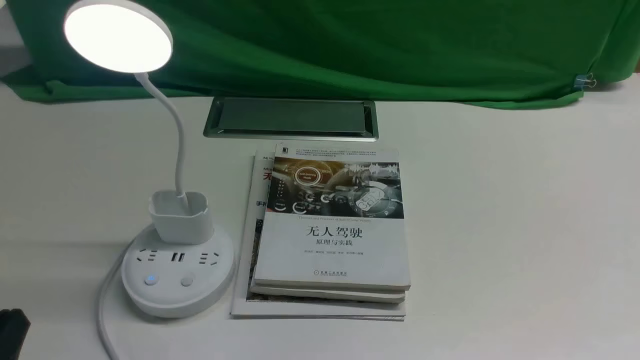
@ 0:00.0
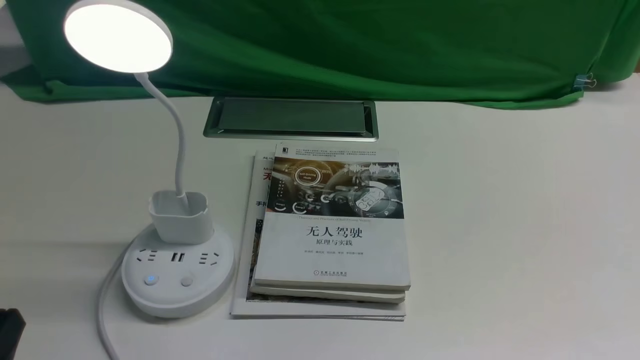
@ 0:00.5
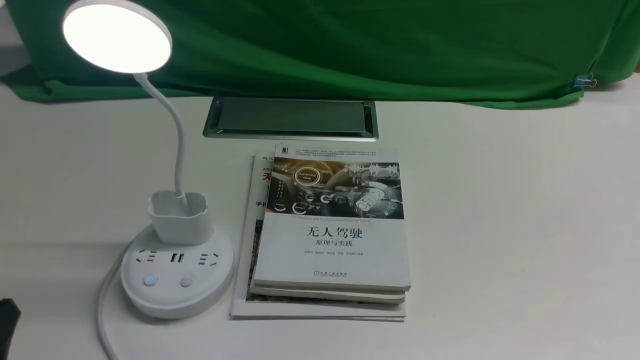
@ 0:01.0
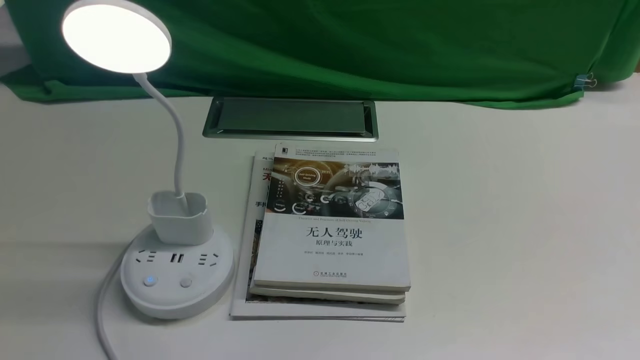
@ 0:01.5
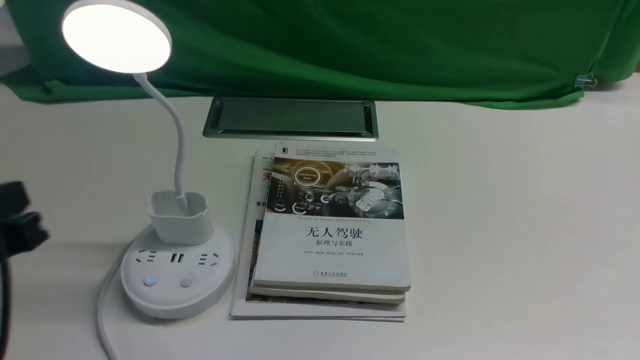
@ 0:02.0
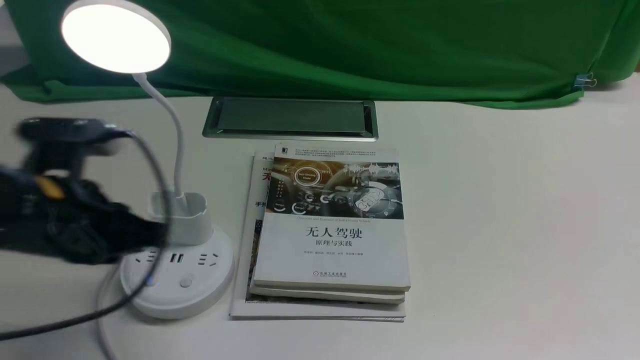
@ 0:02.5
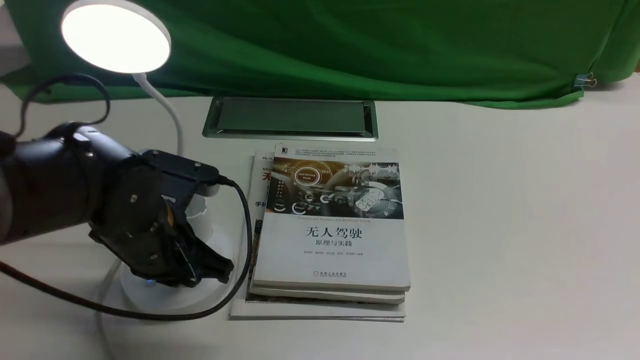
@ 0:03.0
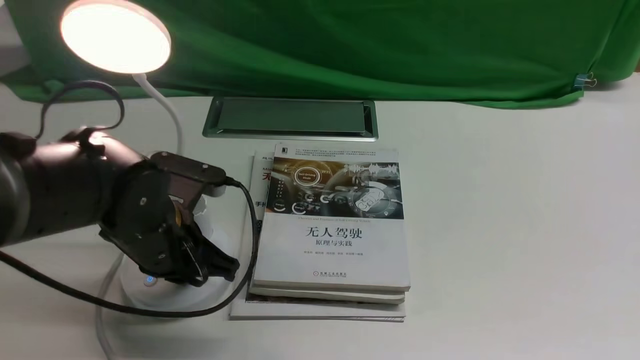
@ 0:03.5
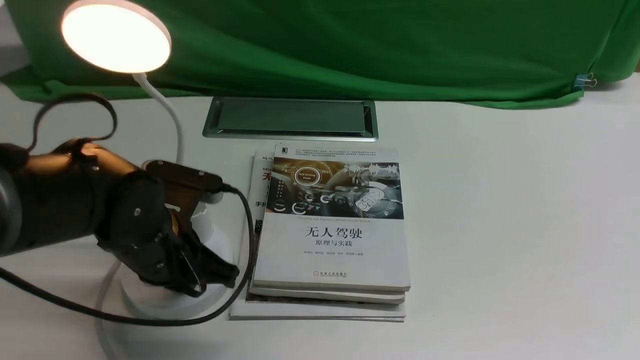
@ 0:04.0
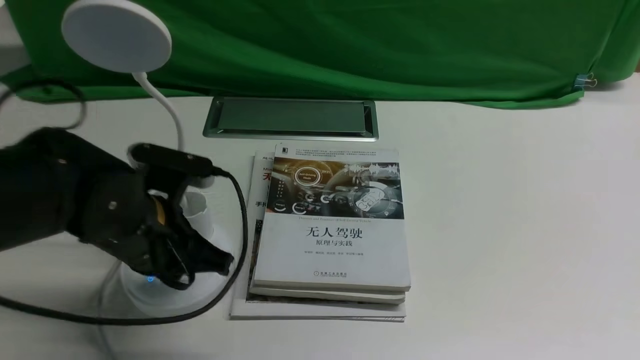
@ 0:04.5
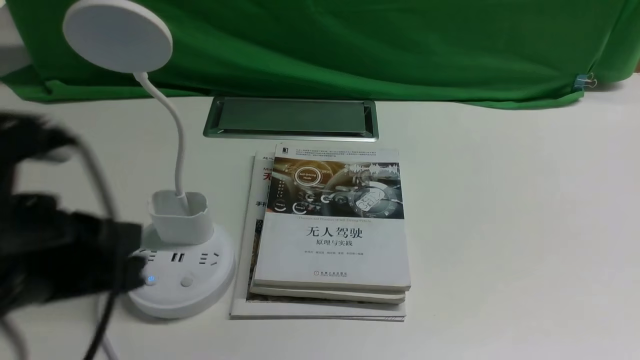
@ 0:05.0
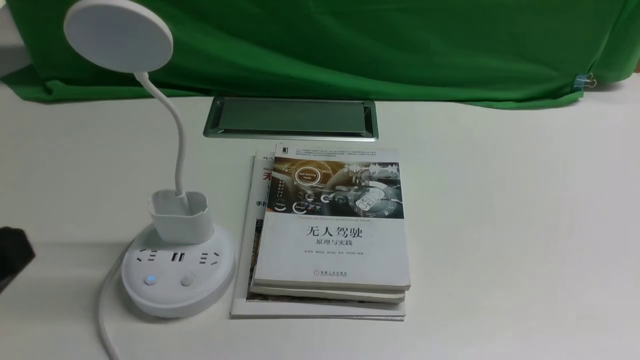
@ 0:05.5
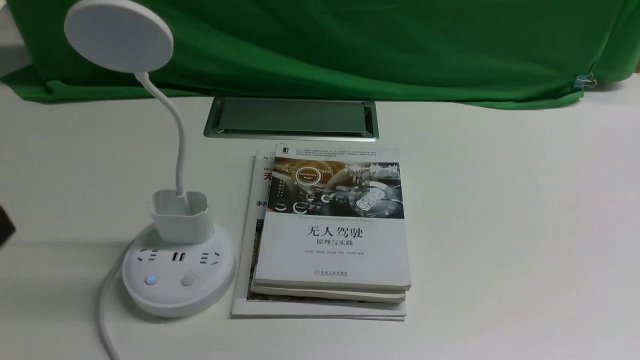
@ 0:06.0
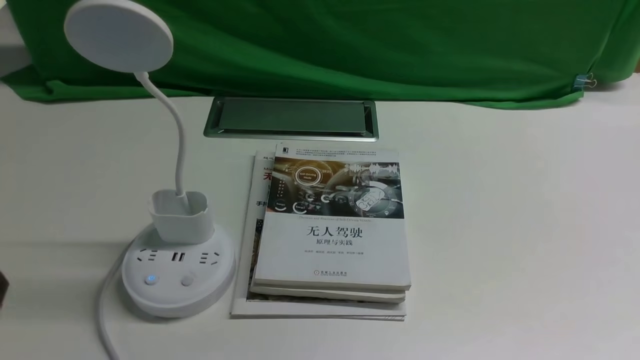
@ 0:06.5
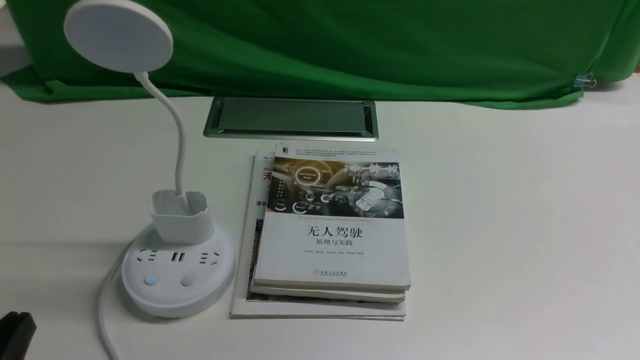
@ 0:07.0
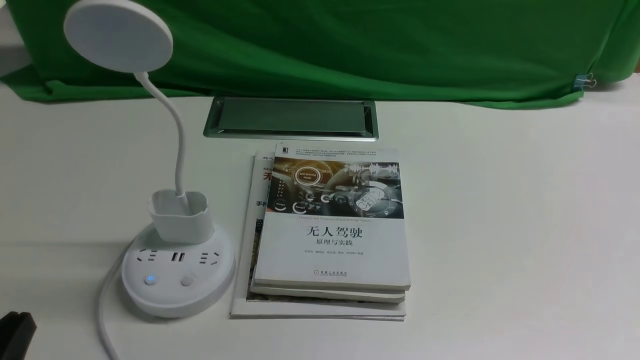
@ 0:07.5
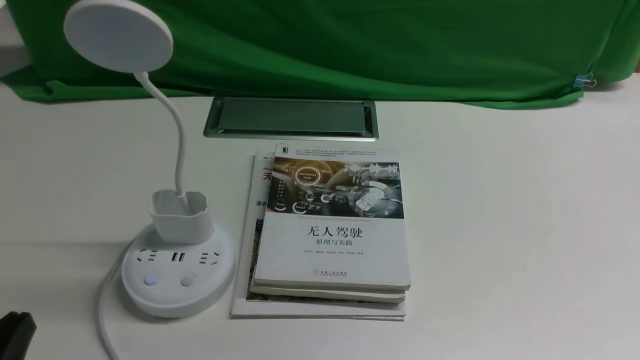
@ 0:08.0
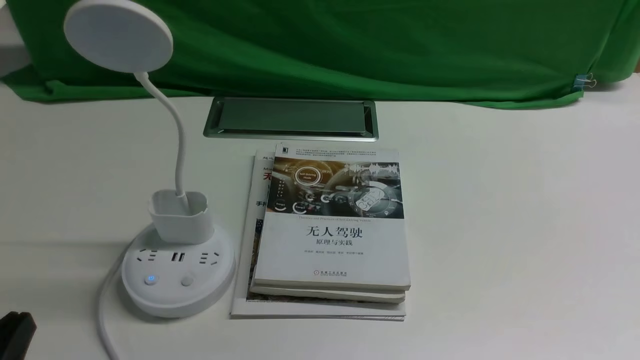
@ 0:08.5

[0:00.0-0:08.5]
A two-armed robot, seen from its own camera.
Task of the whole recording: turn off the desk lamp on the white desktop by hand.
Step, 0:00.0 to 0:04.5: use the left arm to press the button switch on the lamp holder.
0:00.0 to 0:02.0: The left gripper moves upward and forward, some 15 cm.
0:02.0 to 0:04.0: The left gripper goes about 20 cm forward, downward and to the right.
0:04.0 to 0:06.5: The left gripper shifts approximately 25 cm backward and to the left, and closes.

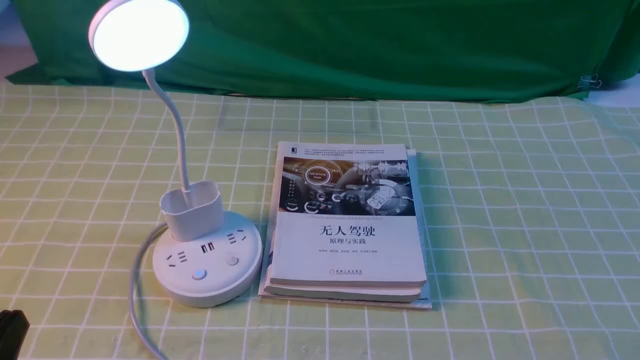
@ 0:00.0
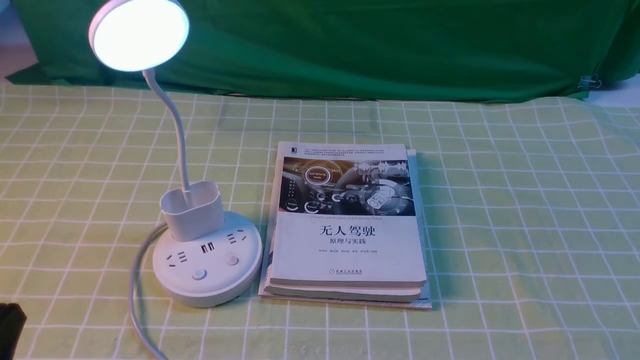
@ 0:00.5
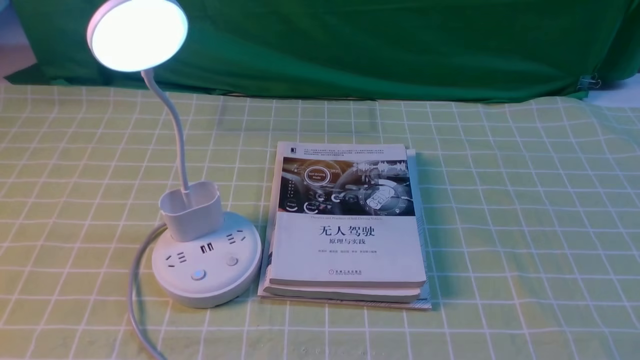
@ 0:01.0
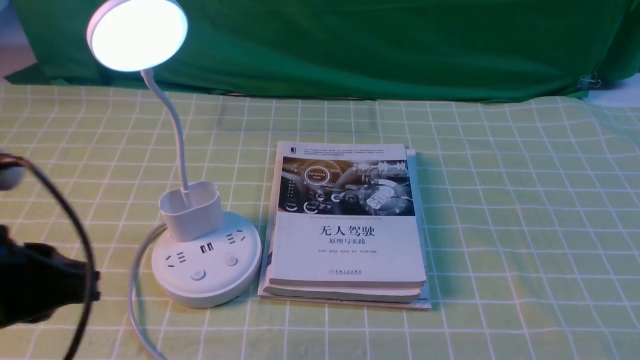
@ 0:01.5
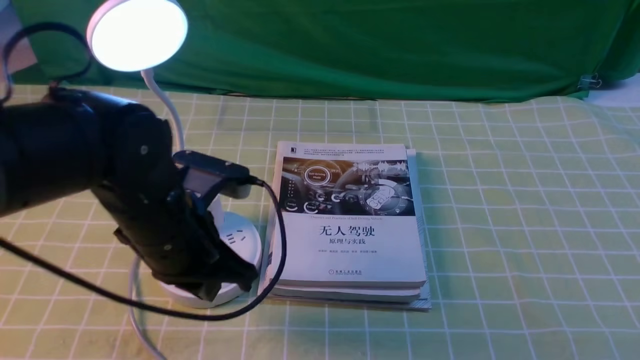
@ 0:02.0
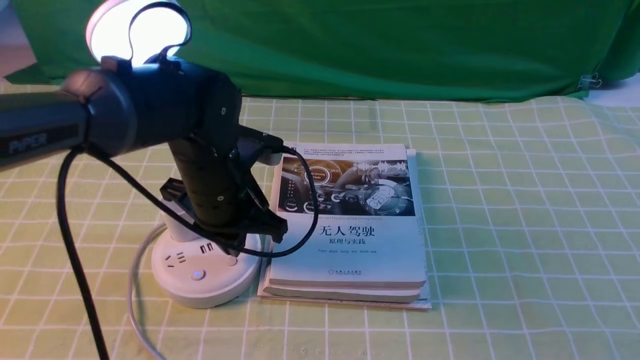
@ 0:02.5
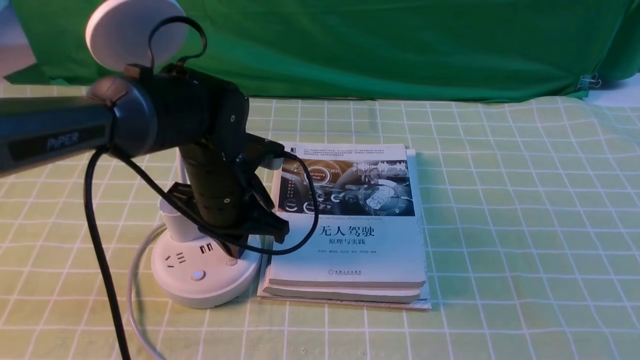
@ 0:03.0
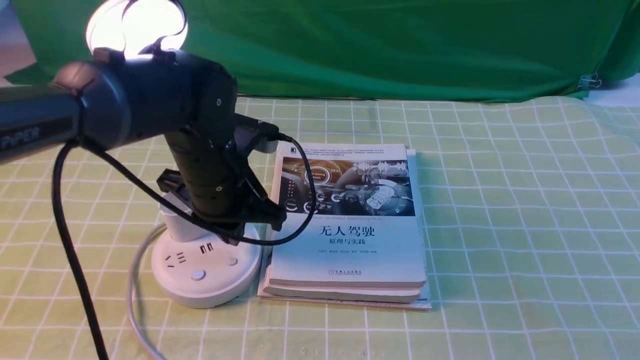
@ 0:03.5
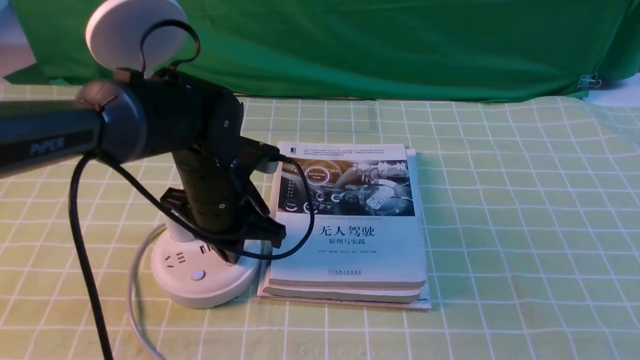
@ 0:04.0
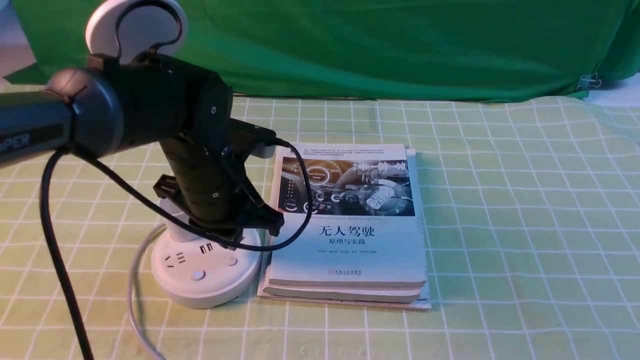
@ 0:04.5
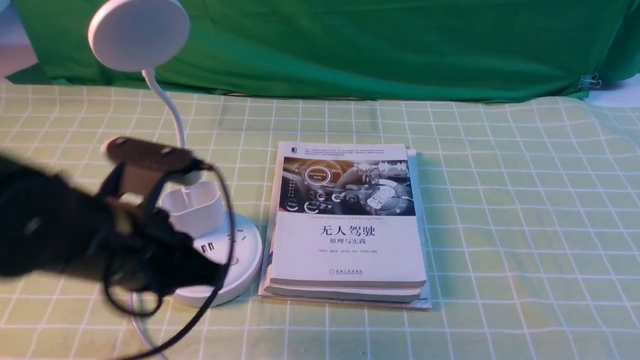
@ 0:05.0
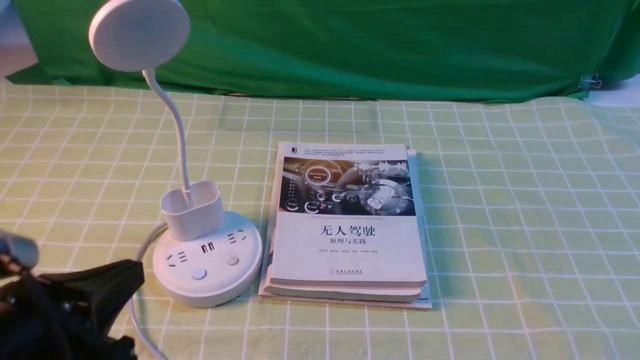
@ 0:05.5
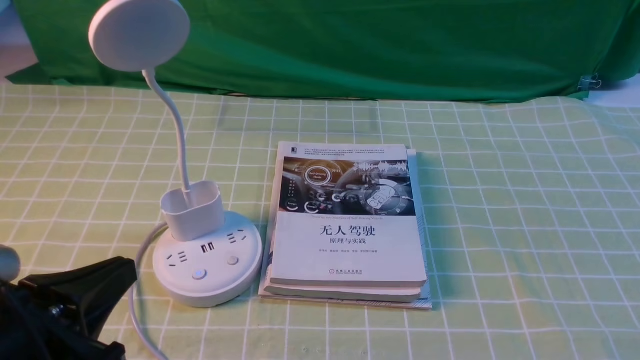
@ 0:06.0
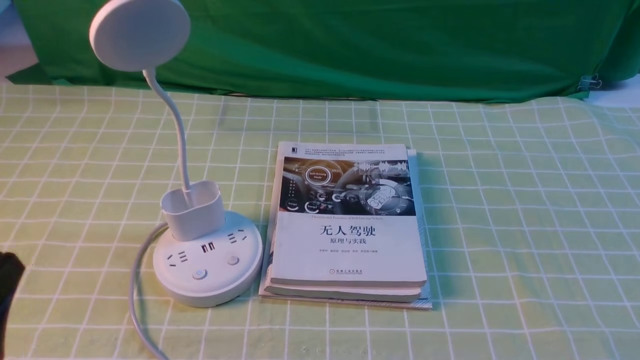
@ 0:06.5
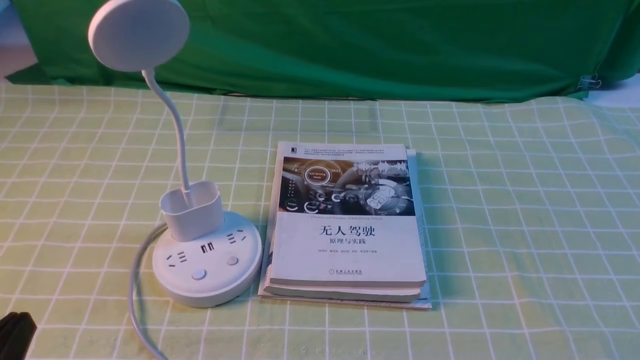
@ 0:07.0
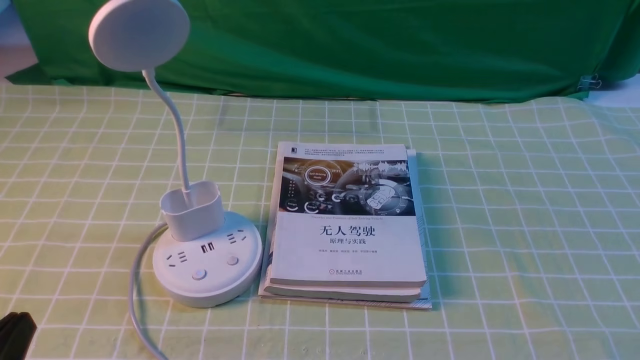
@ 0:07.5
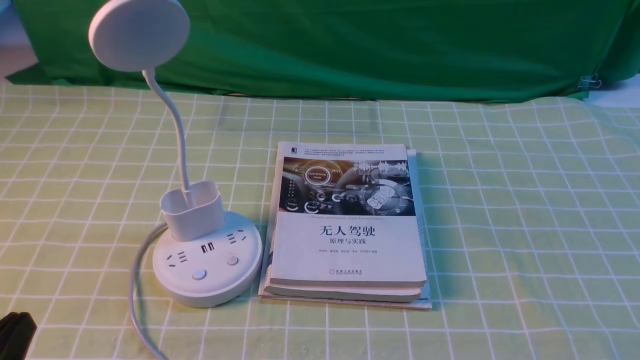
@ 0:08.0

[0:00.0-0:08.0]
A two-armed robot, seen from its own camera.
Task of the whole recording: turn off the desk lamp on the green coffee tablecloth by hand.
Step, 0:00.0 to 0:04.5: use the left arm to press the button switch on the lamp holder.
0:02.0 to 0:04.0: The left gripper moves forward and downward, roughly 10 cm.
0:04.0 to 0:06.0: The left gripper travels backward and to the left by some 25 cm, and opens its fingers.
0:06.0 to 0:08.0: The left gripper goes about 5 cm downward.
